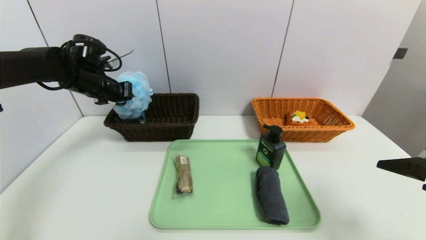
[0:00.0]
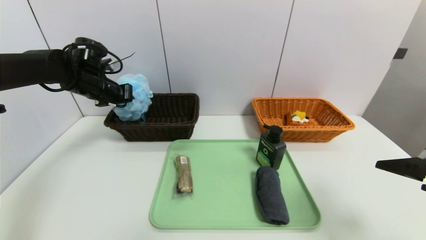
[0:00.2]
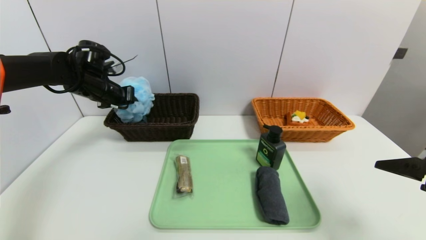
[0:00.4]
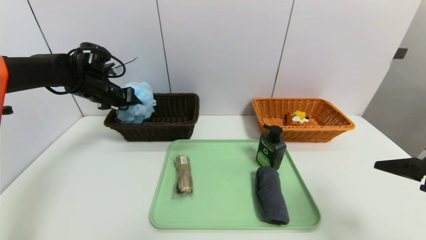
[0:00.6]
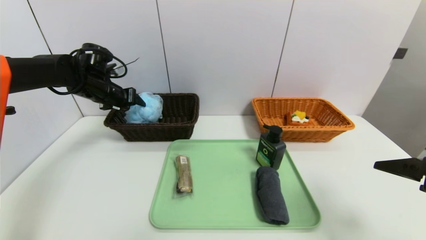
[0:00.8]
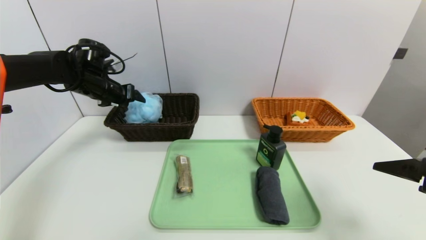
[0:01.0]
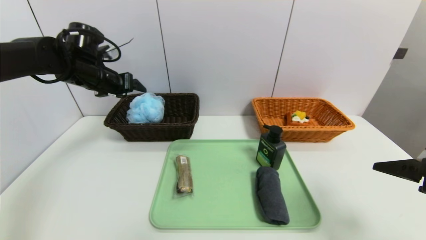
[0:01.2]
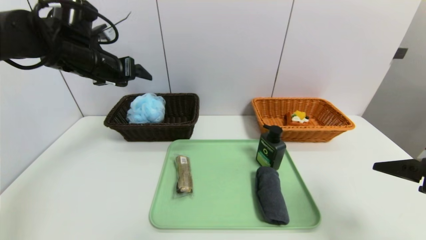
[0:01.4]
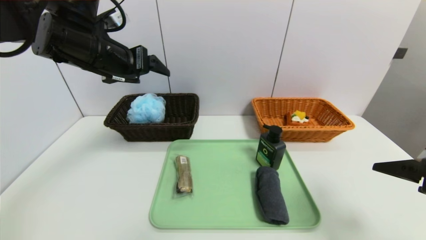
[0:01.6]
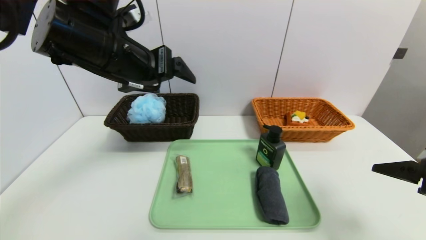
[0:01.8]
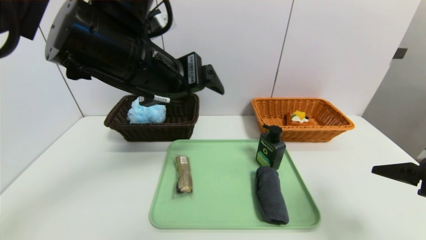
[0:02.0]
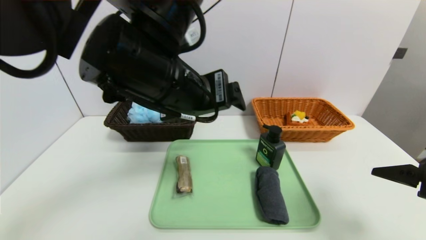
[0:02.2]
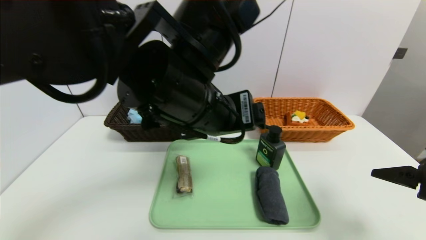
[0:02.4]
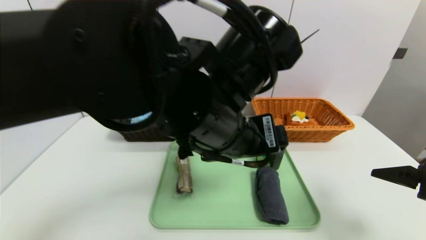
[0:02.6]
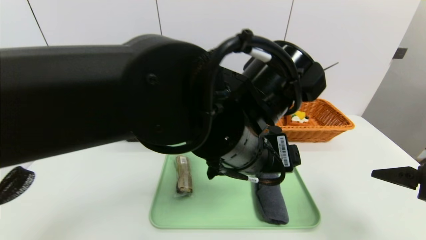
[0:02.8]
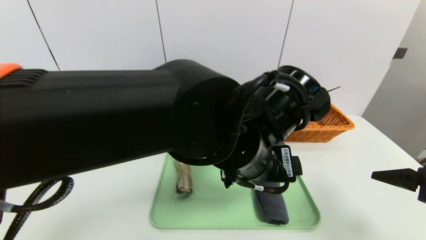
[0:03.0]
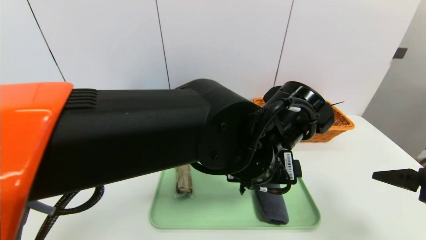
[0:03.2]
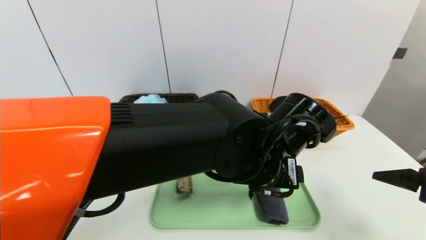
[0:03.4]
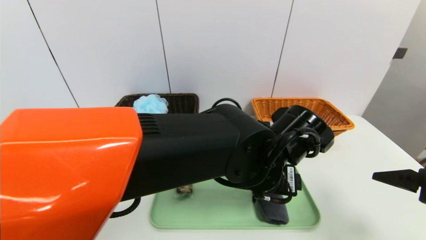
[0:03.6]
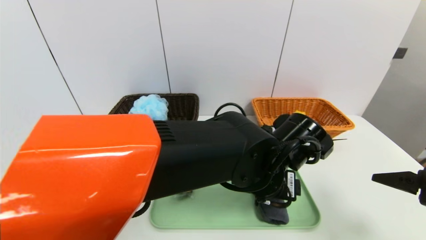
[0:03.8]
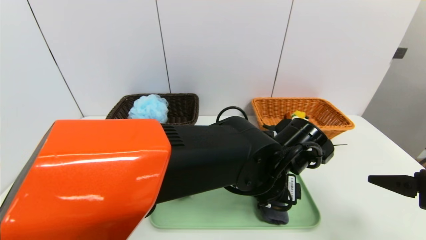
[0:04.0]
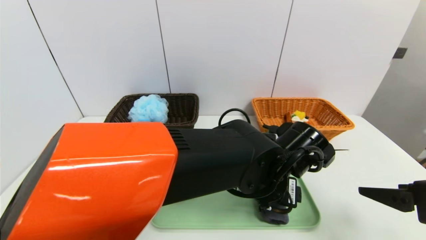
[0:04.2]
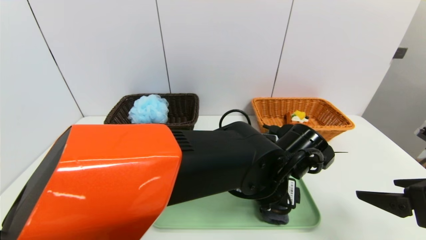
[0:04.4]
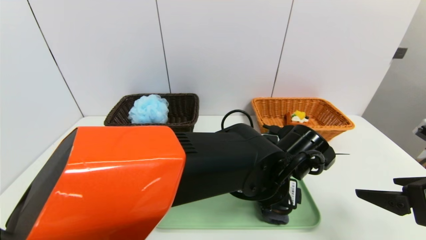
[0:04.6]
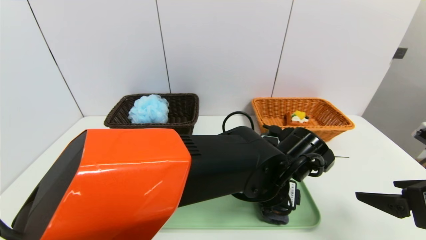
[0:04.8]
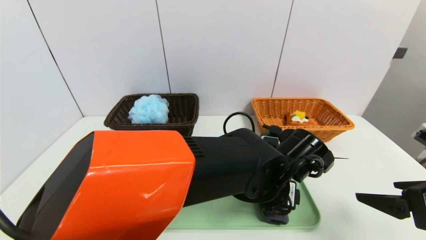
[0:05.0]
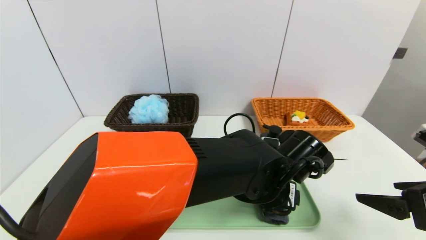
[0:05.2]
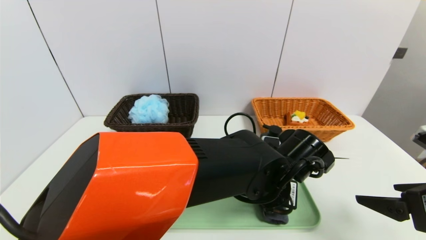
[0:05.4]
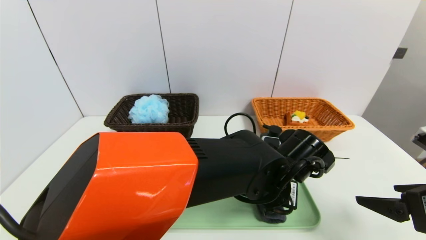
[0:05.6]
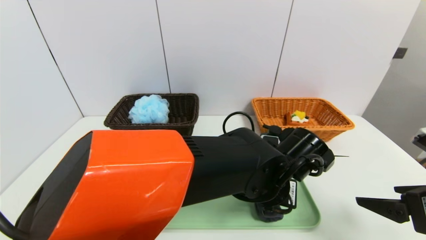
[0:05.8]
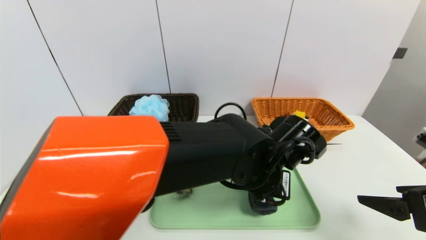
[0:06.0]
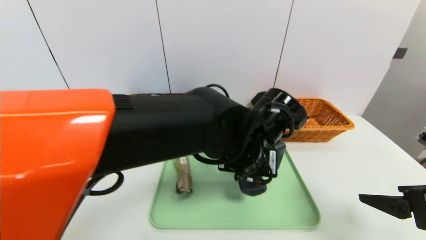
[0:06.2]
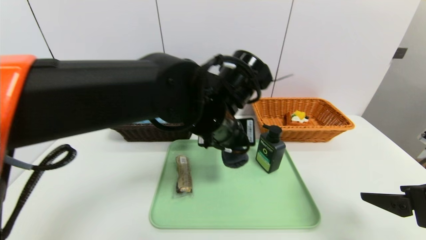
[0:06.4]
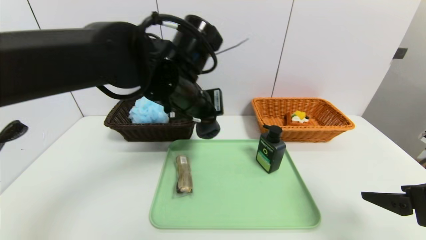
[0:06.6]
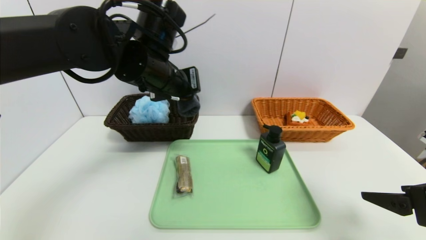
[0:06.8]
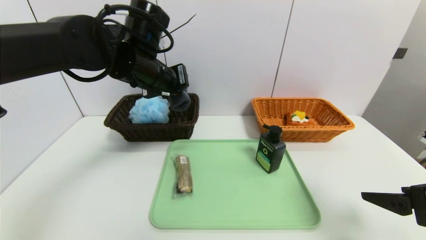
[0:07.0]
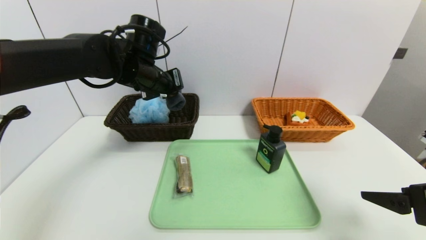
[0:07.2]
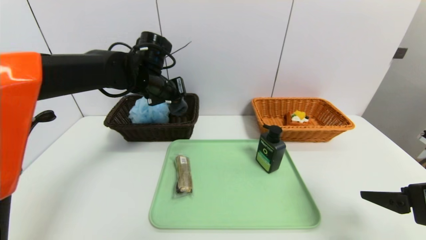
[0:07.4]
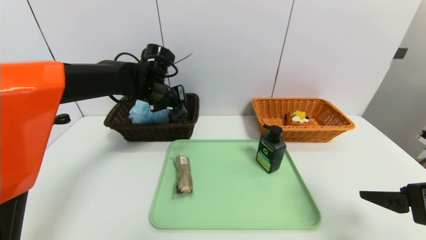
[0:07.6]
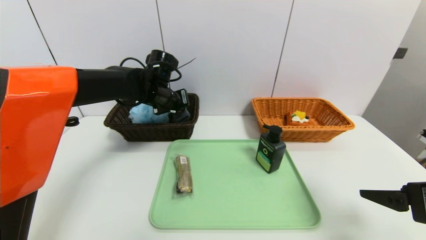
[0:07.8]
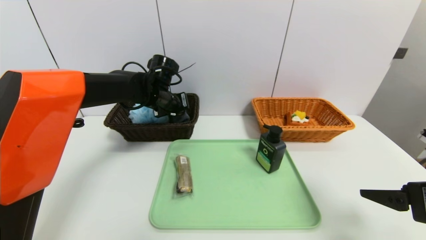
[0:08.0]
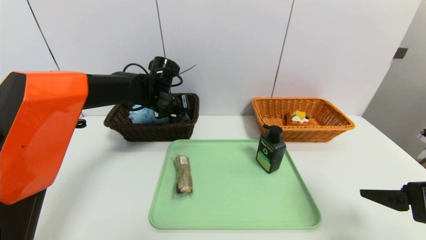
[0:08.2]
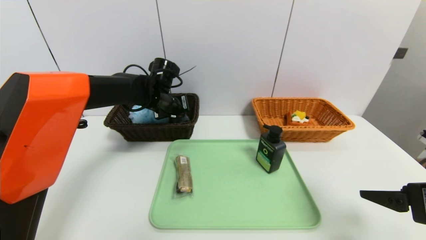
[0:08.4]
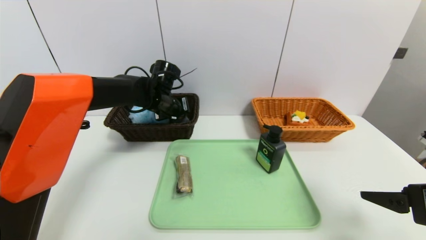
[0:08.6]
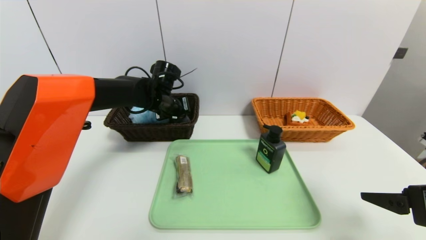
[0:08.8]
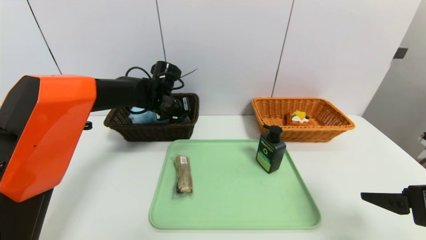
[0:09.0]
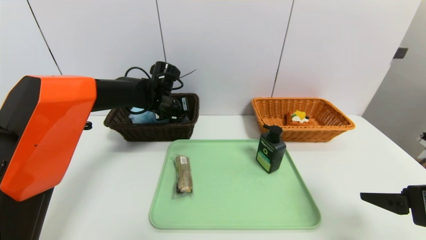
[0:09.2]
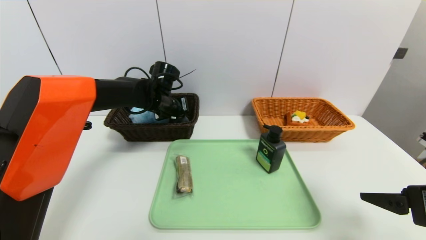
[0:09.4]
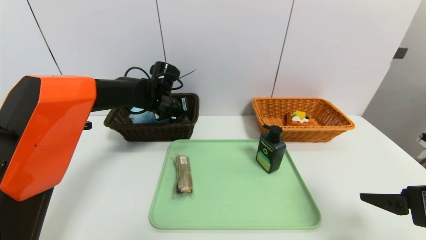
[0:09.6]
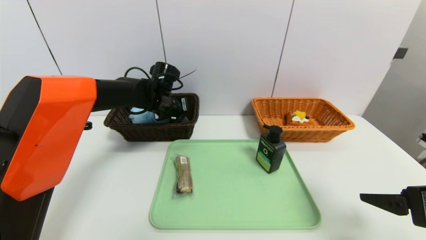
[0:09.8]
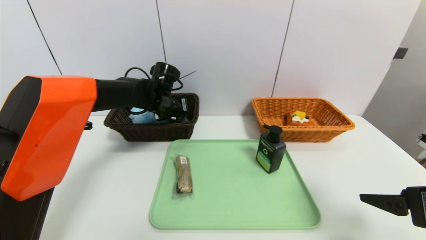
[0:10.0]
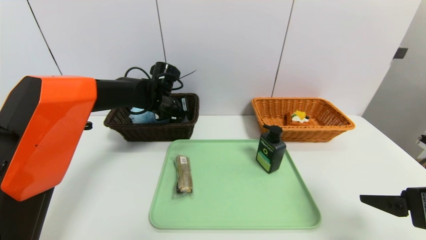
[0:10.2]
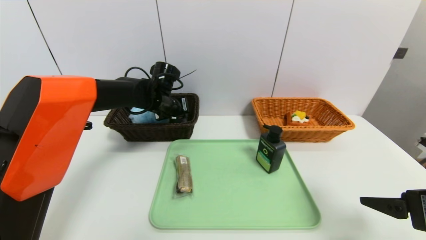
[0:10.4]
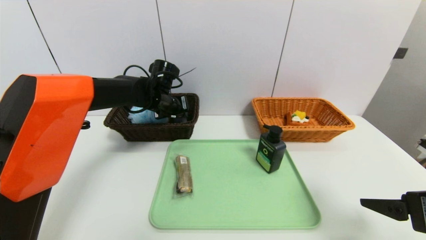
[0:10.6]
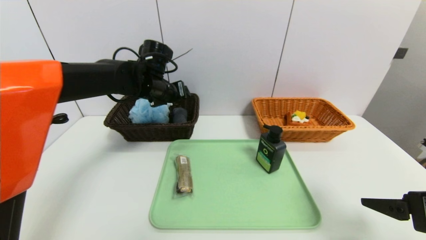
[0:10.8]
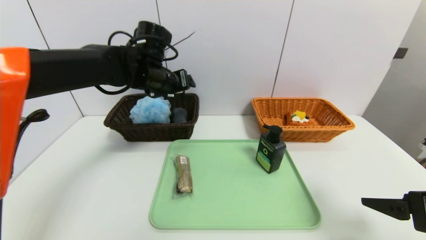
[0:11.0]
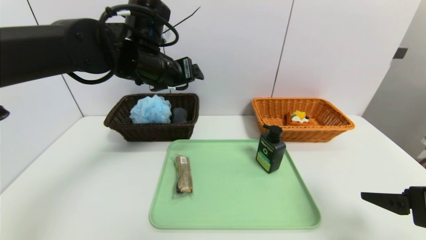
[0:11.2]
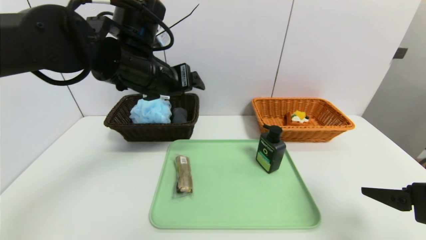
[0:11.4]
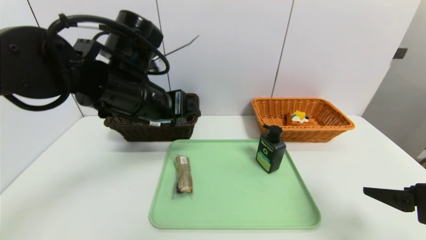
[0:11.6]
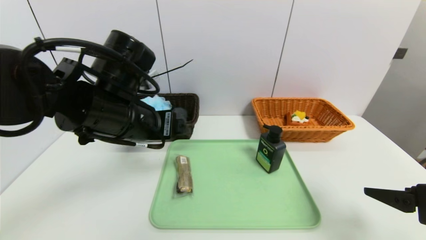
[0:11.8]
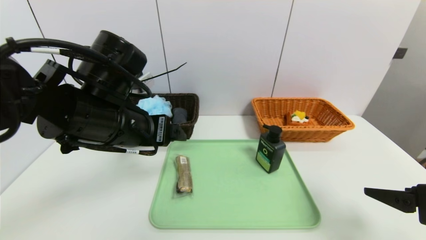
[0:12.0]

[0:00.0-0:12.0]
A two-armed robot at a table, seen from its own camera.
Task of the whole recording: place the food in the right basket with the right gripper, and place the non food items in the left basket with the left gripper.
Step, 0:01.2 to 0:10.8: Grasp the grey towel and put it in the left basket.
0:00.0 to 0:01.6: The left gripper travels backward, upward and to the right by some 15 cm, and opens.
0:01.6 to 0:03.0: The left gripper heads to the right, backward and downward, covering roughly 30 cm.
0:03.0 to 0:04.4: The left gripper moves downward, roughly 10 cm.
0:04.4 to 0:06.0: The left gripper closes up.
0:06.0 to 0:07.6: The left gripper moves to the left and forward, some 30 cm.
0:07.6 to 0:09.0: The grippers make only small movements.
0:09.0 to 0:10.4: The left gripper opens up.
0:10.4 to 0:12.0: The left gripper shifts about 20 cm backward, and opens up.

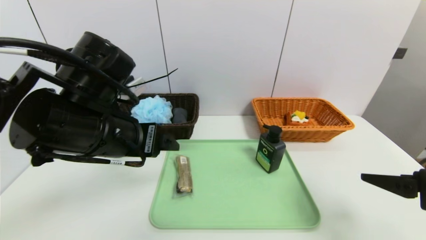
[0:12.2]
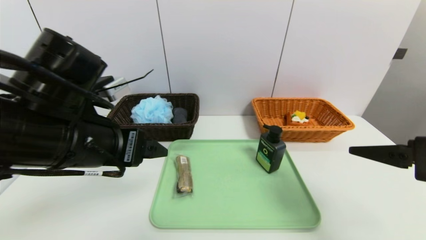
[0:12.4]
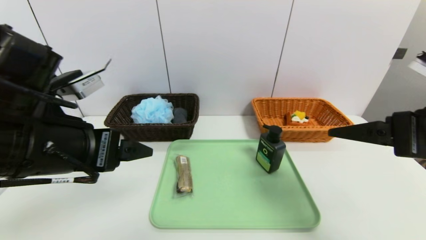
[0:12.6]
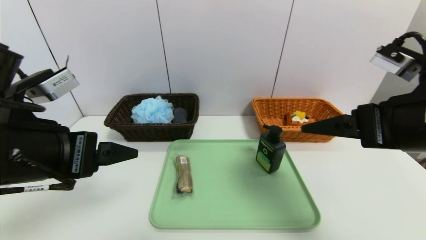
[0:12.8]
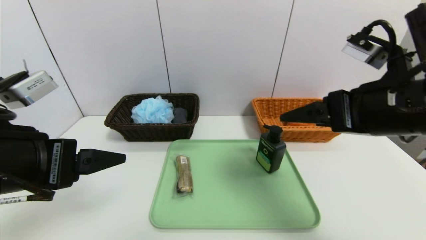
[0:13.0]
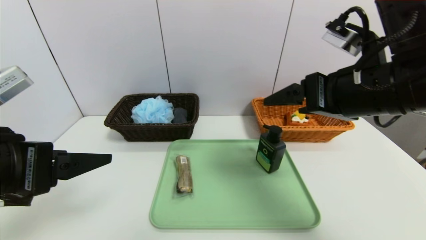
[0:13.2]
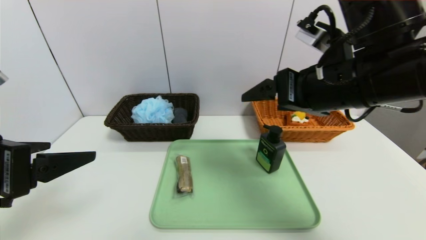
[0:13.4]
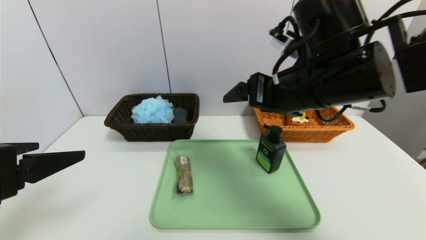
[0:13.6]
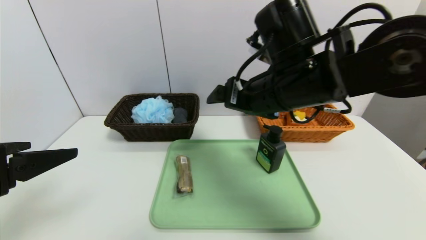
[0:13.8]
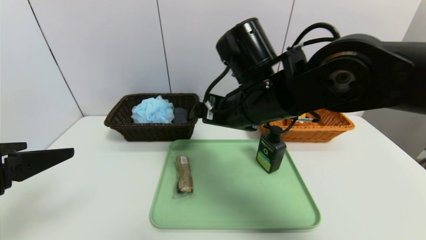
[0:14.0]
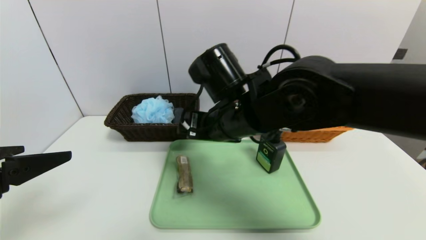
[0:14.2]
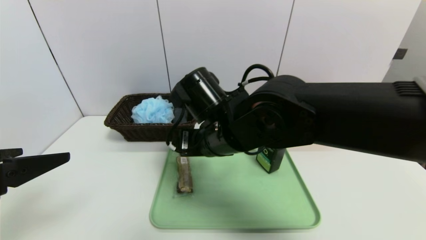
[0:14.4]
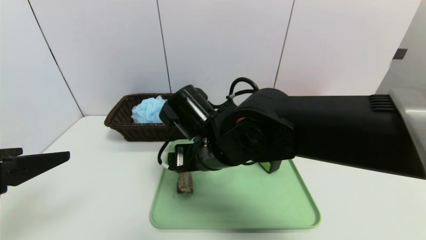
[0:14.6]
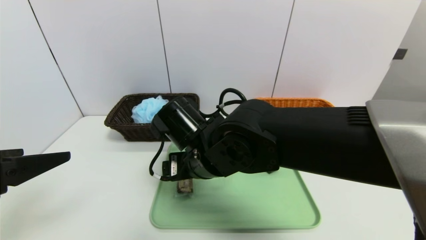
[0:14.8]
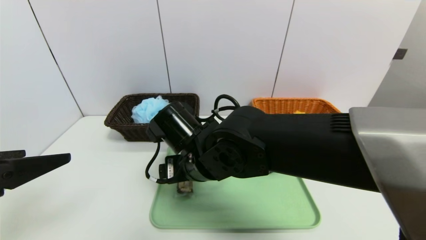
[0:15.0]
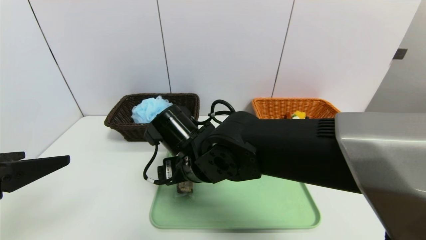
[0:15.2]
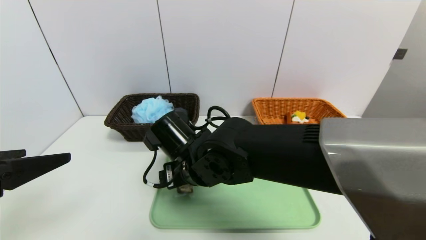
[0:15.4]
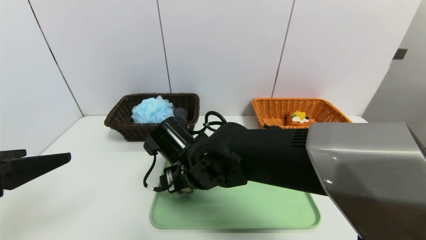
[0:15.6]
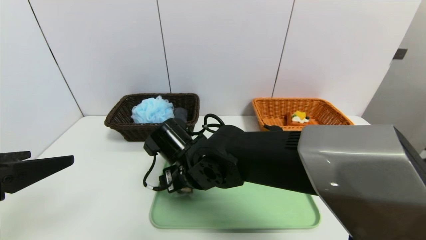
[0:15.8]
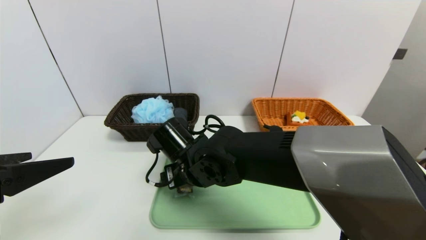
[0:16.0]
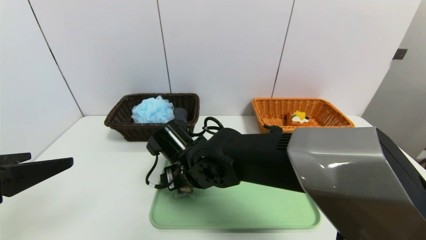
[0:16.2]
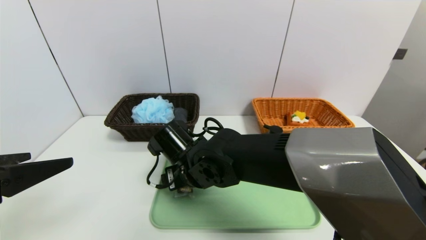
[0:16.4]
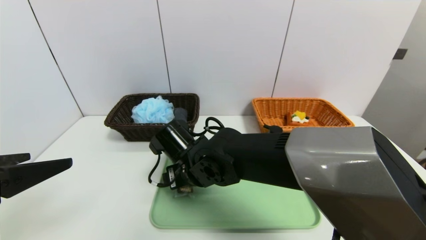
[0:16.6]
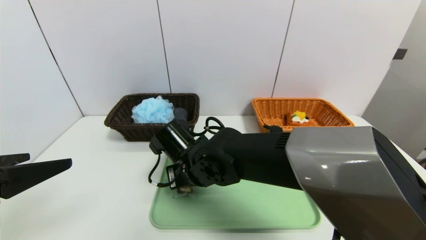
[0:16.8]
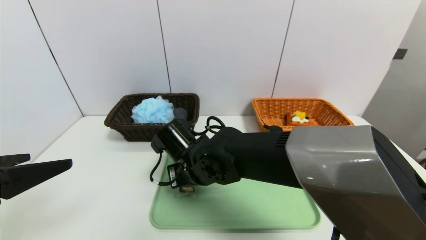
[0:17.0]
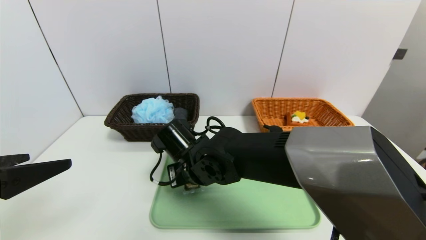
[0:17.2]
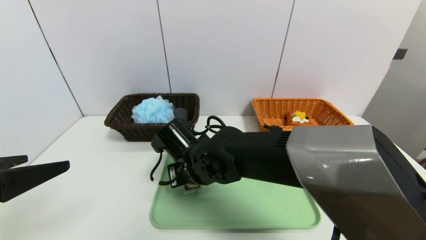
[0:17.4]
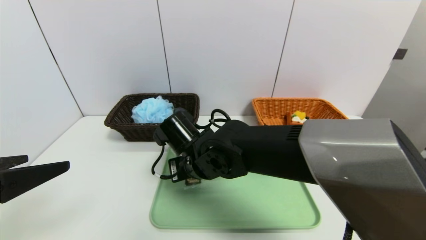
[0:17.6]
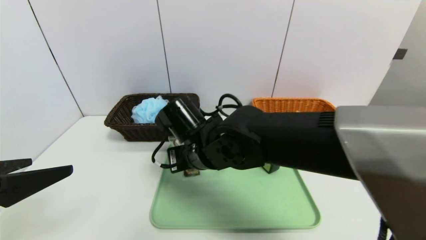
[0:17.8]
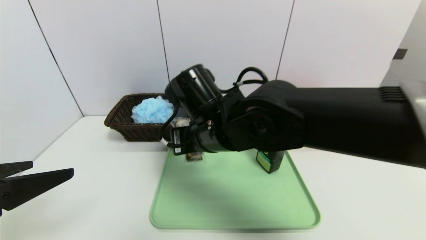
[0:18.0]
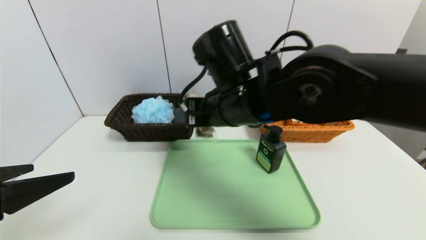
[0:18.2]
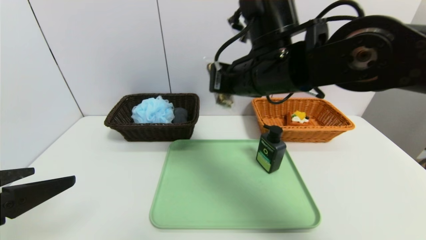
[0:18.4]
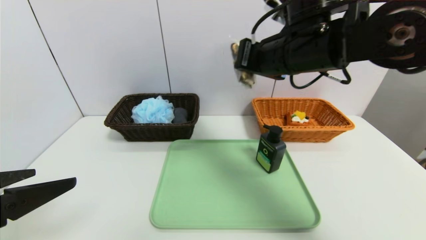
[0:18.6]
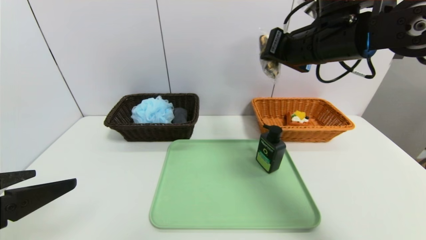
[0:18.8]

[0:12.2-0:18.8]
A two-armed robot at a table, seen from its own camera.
Task of the whole recording: place the food in the right basket with the right gripper, and place the non food items in the left basket with the left gripper.
0:12.2 to 0:13.8: The left gripper is displaced to the left and backward by roughly 15 cm. The right gripper is displaced to the left and forward by about 25 cm.
0:13.8 to 0:15.4: The right gripper moves downward and to the left, about 20 cm.
0:15.4 to 0:17.2: The right gripper closes up.
0:17.2 to 0:18.8: The right gripper travels to the right and upward by about 30 cm.
